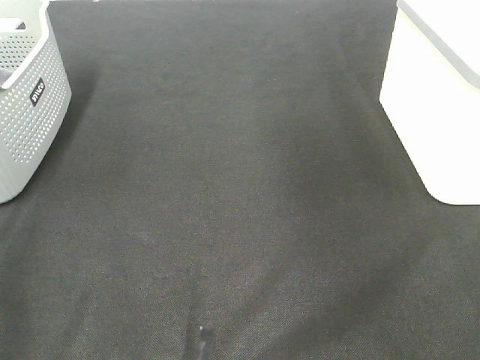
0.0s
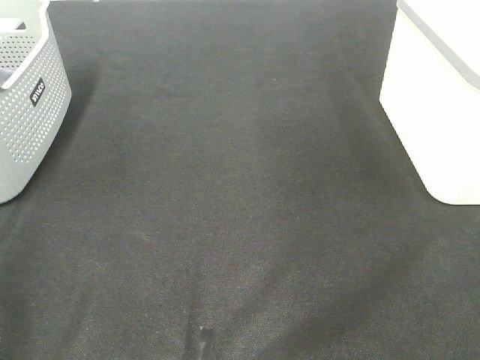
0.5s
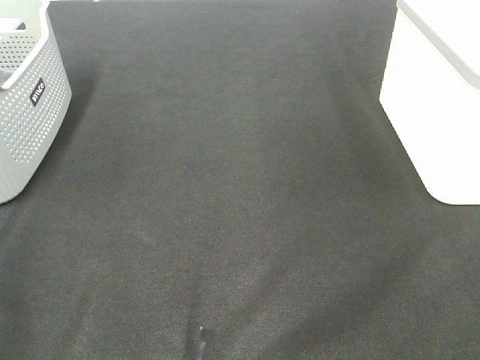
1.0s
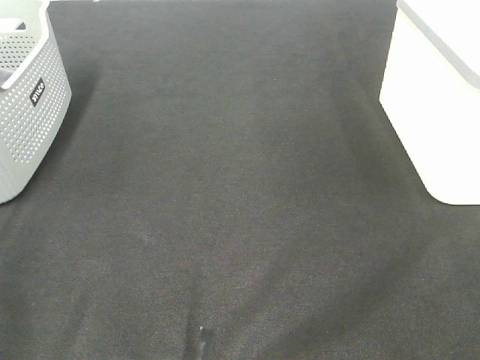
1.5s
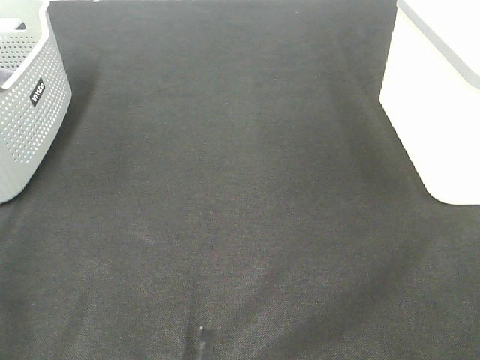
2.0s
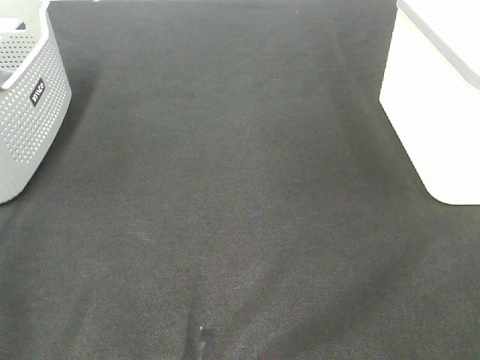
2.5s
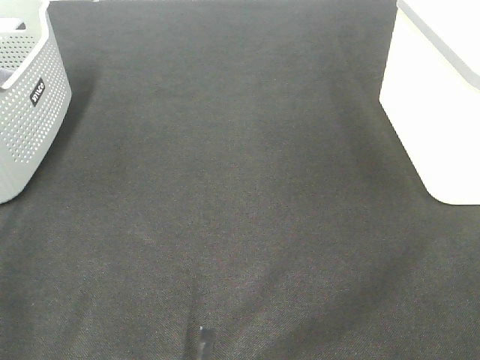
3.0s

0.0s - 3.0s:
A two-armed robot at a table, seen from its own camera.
1.5s - 3.0s: Both grippers stay put.

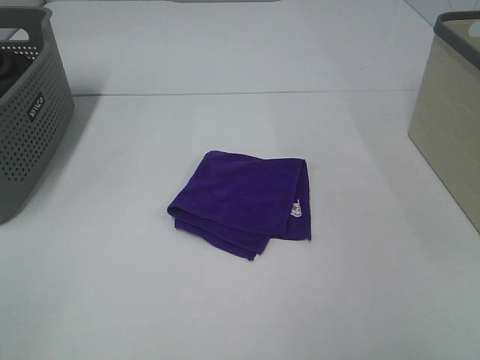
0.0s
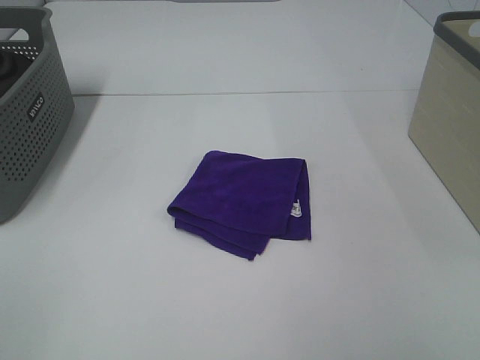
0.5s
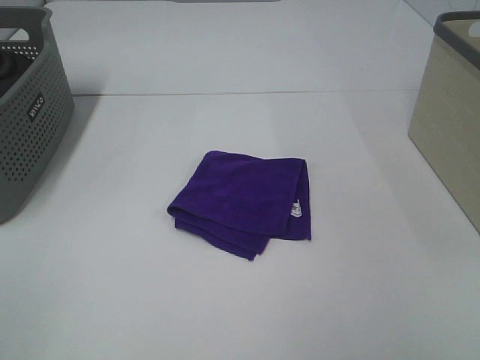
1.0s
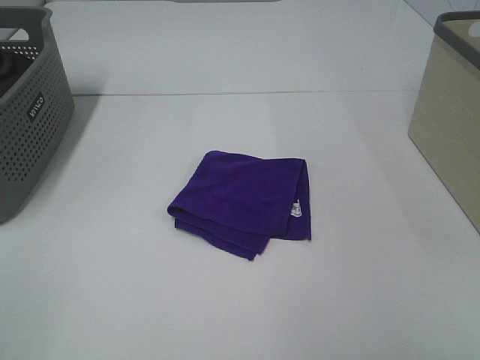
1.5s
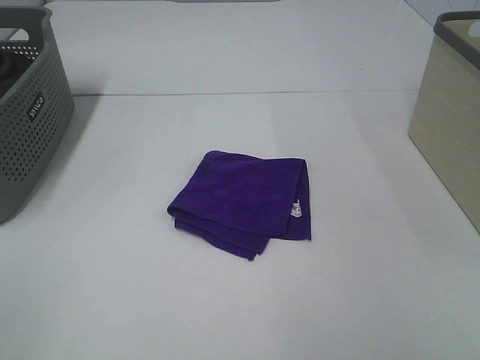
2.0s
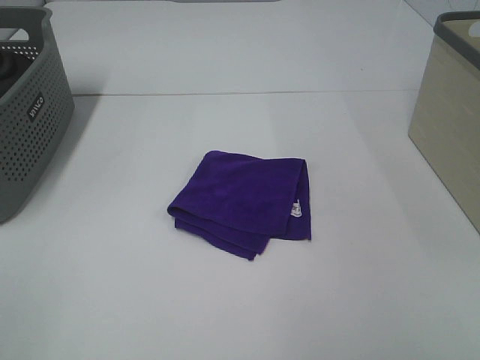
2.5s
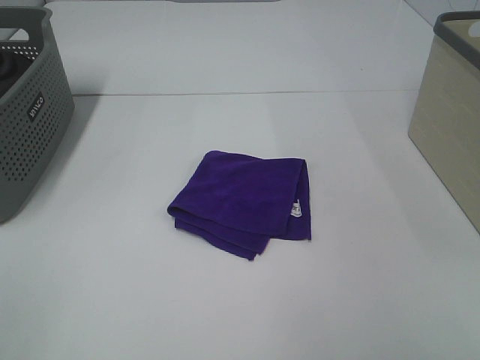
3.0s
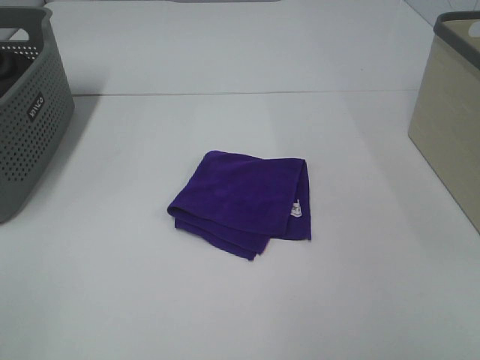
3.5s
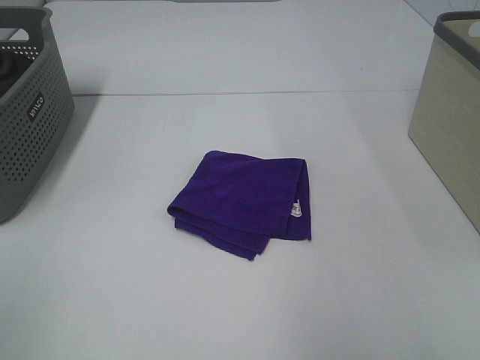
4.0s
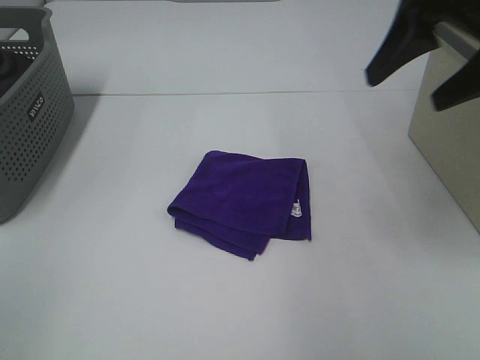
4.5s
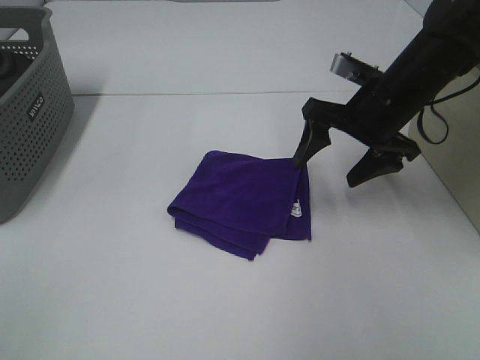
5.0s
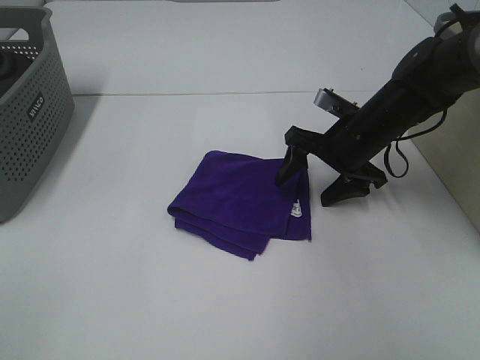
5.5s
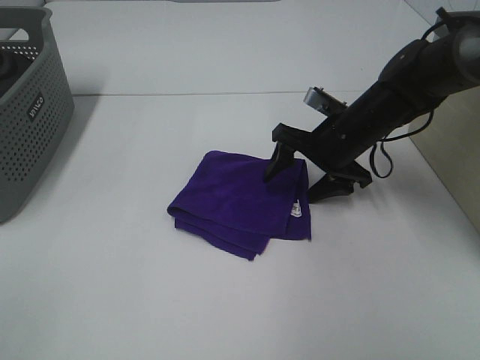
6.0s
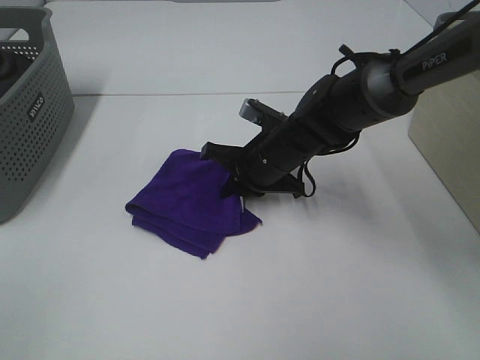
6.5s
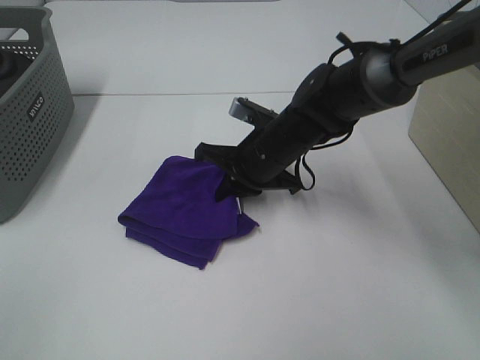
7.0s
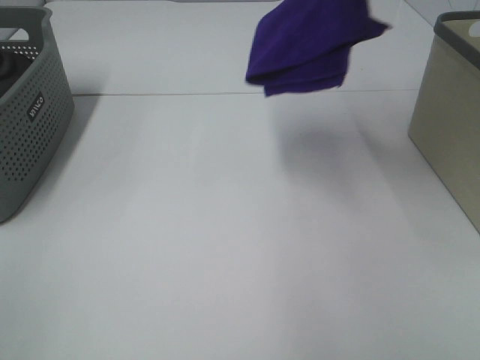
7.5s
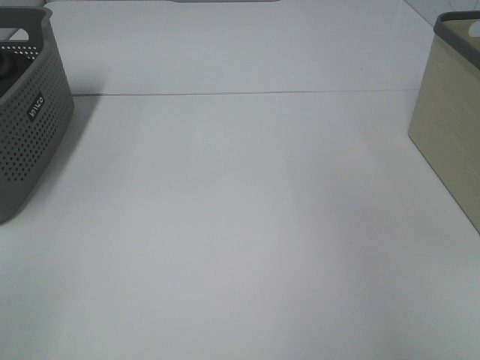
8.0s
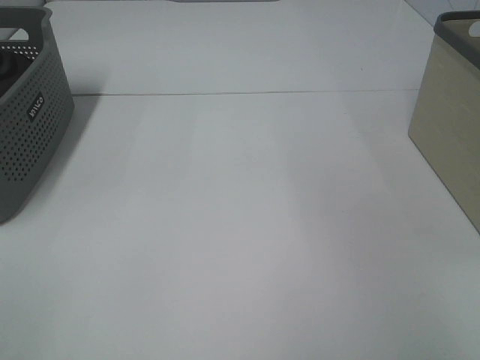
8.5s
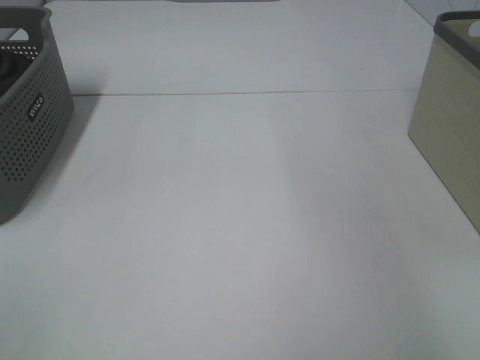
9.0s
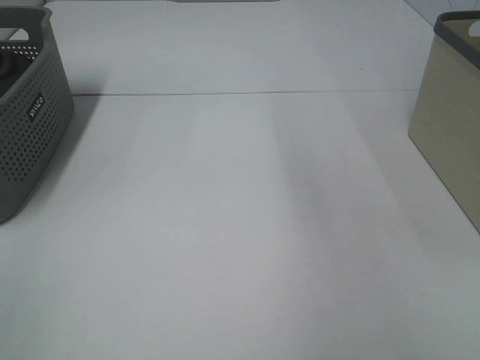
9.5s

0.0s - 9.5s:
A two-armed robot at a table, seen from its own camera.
Step, 0.0s - 6.5s: Right hand: grab the folded purple towel.
Step, 7.0s - 9.0s: Right hand: place the purple towel in right basket.
4.0s - 5.5s: The right gripper travels downward and forward by some 40 cm.
5.5s - 7.5s: The right gripper travels upward by approximately 30 cm, and closes.
7.5s - 9.5s: The right gripper moves roughly 20 cm to the right and comes back, and opens.

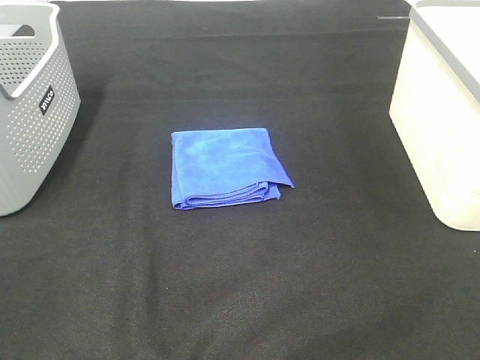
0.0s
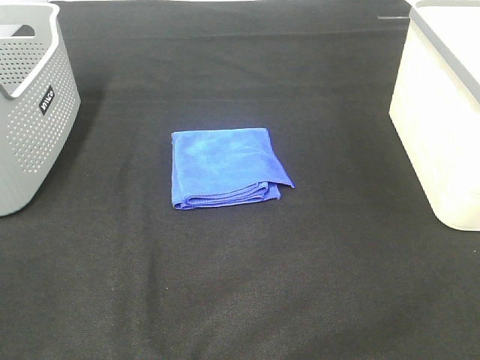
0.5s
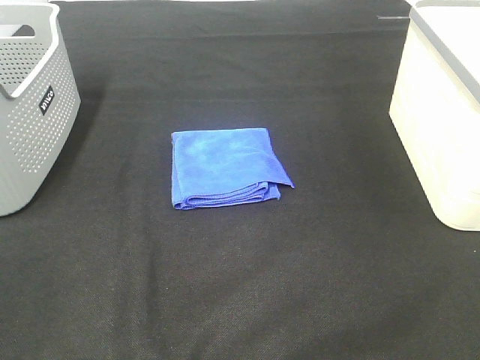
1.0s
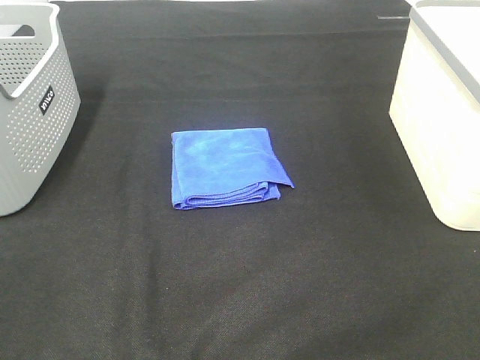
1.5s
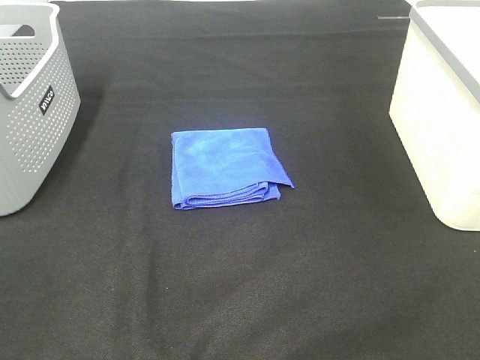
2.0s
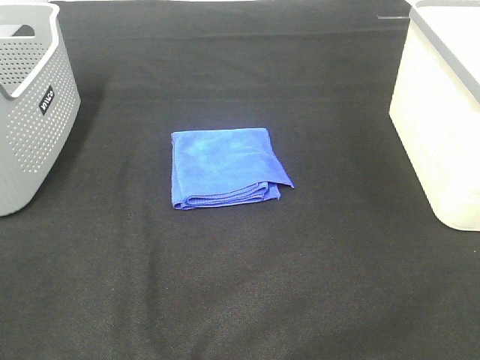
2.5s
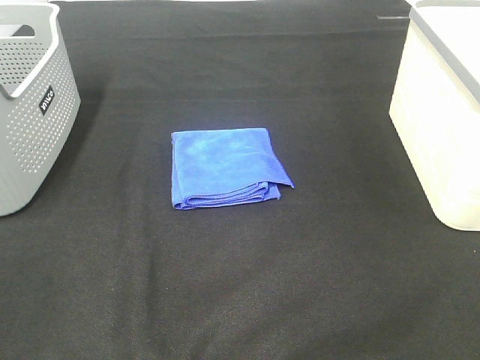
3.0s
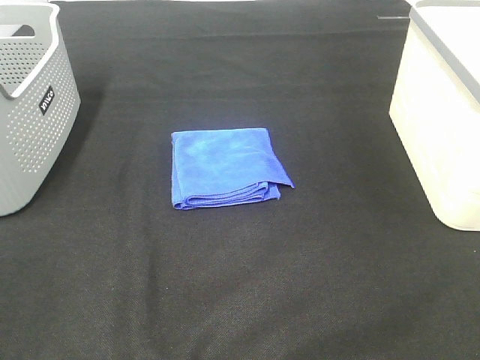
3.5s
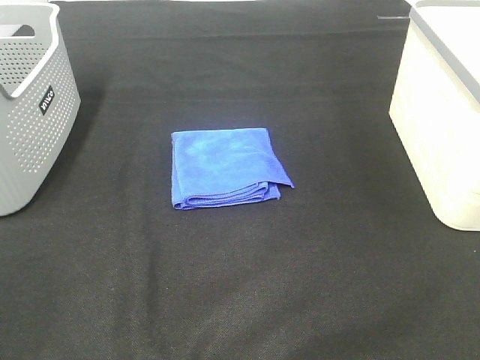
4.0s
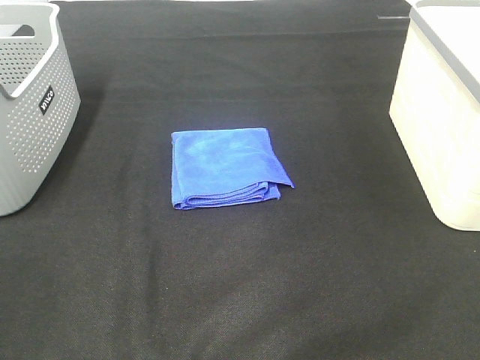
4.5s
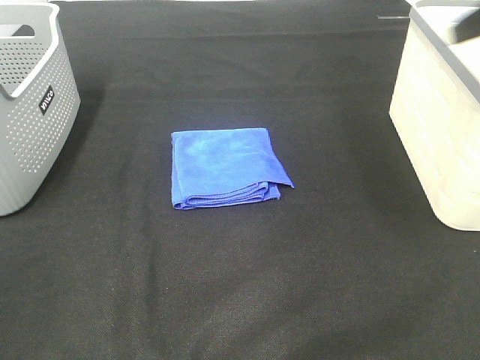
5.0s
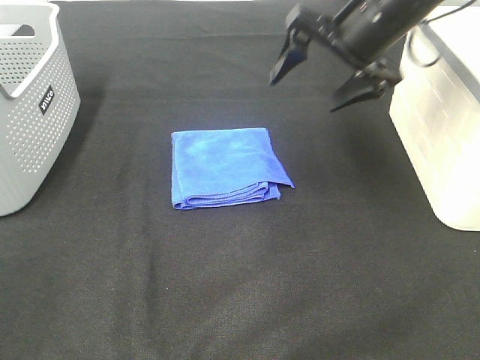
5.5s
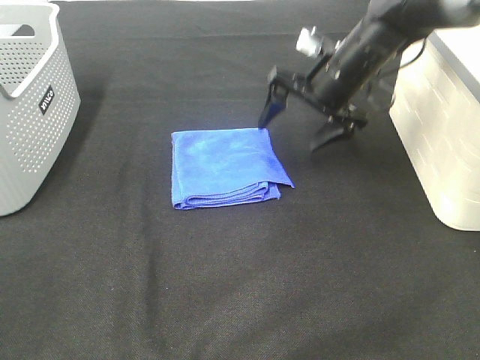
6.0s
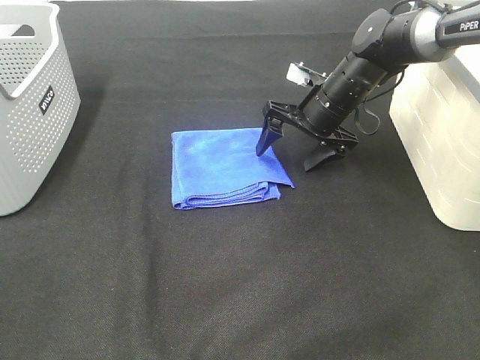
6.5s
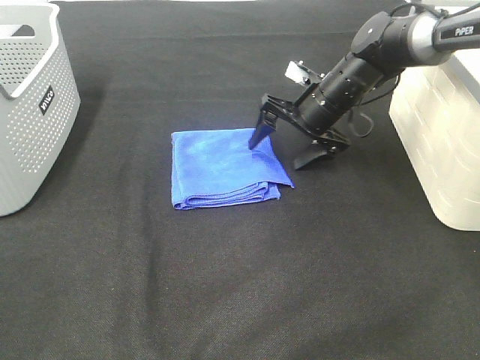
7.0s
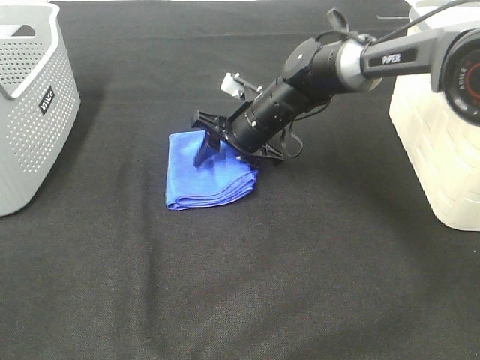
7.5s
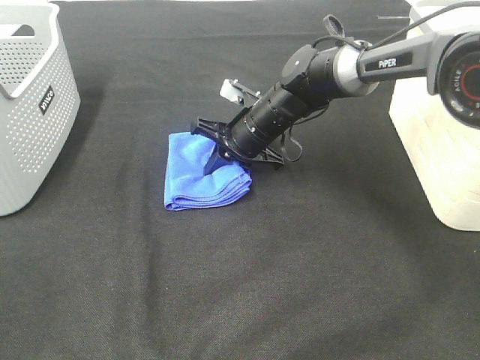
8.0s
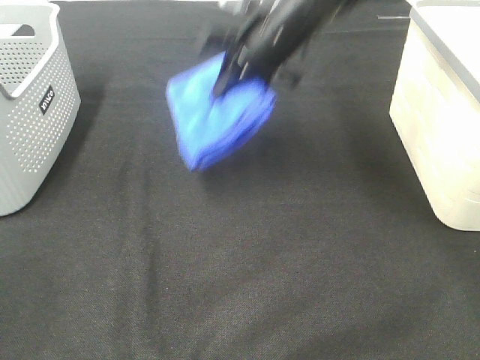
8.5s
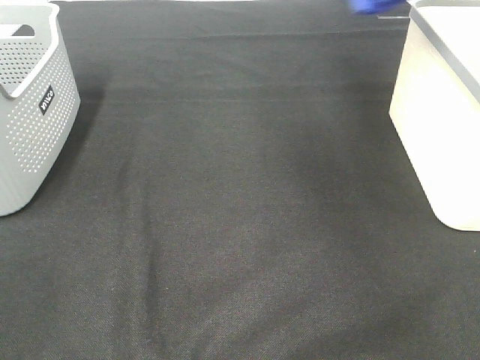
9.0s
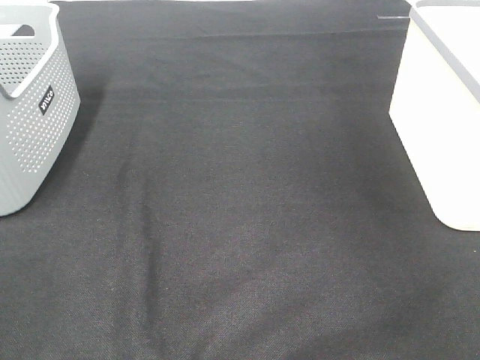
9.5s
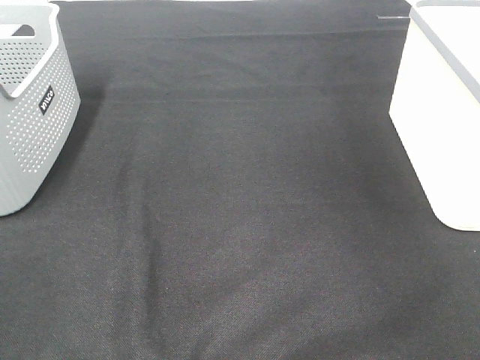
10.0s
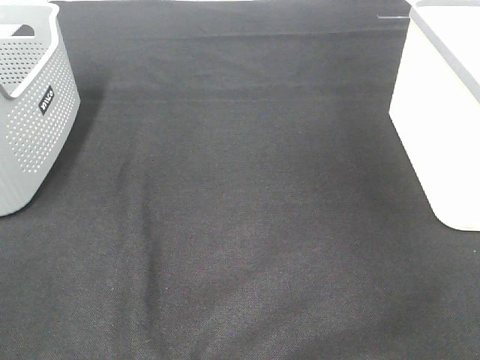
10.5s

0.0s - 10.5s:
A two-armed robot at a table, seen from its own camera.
Step, 0.0s - 7.5s: Right hand: grab the folded blue towel.
Step, 8.0s - 10.5s: Right hand: place the blue towel in right basket.
0.0s - 2.0s: Both grippers stay about where they are.
4.0s - 6.5s: The right gripper heads forward, downward and to the left, covering roughly 50 cm.
6.5s - 8.5s: The right gripper is displaced upward and to the left by about 15 cm, and closes its fingers.
8.5s - 10.5s: The right gripper shifts some 35 cm to the right, and opens up.

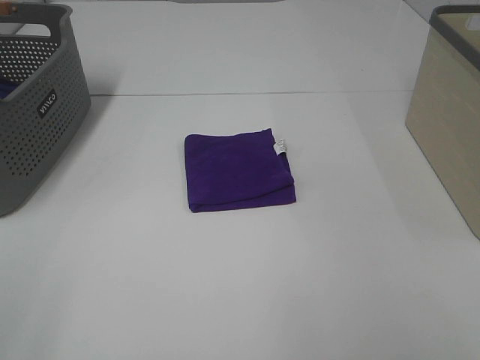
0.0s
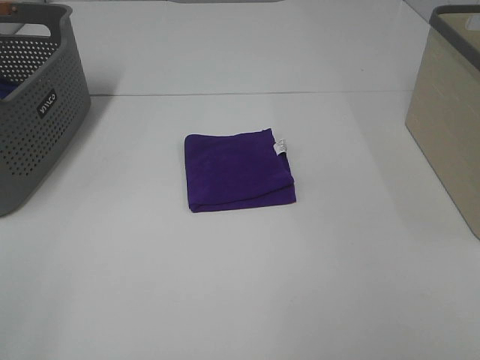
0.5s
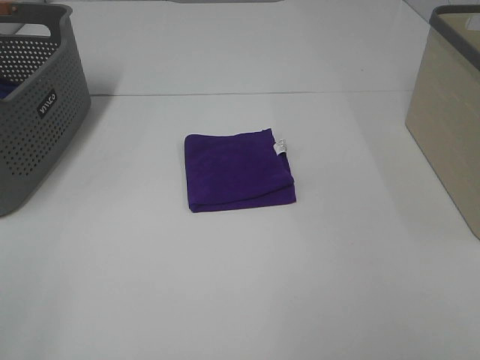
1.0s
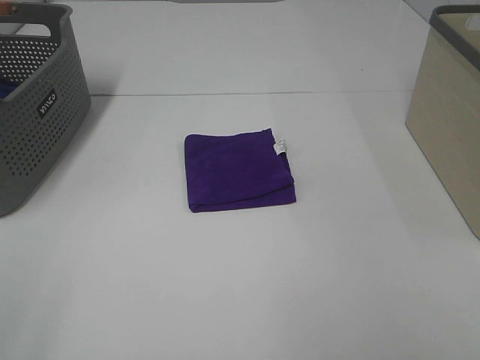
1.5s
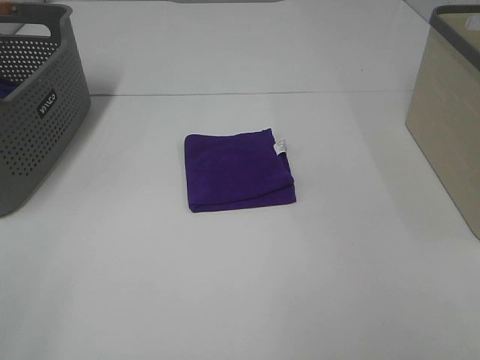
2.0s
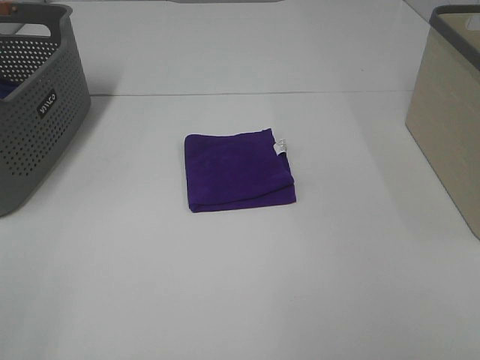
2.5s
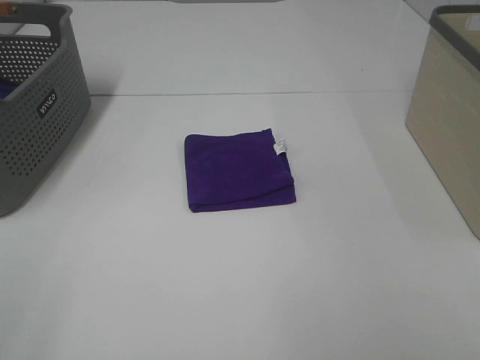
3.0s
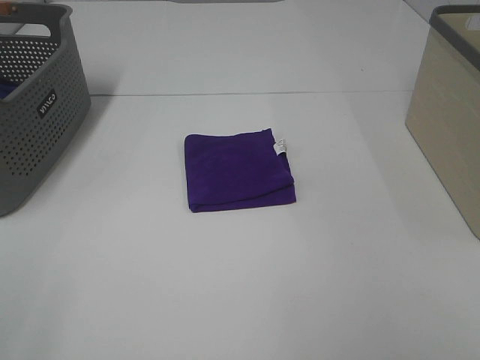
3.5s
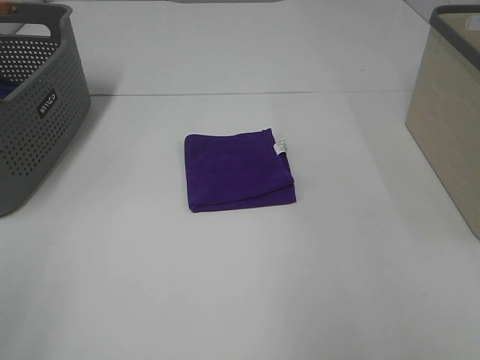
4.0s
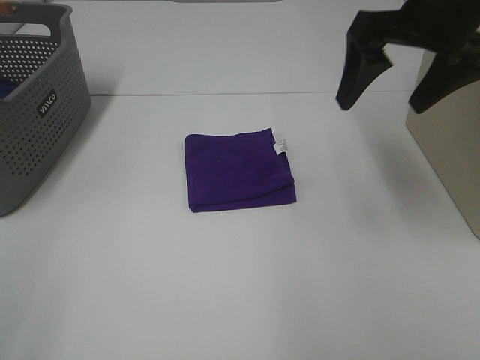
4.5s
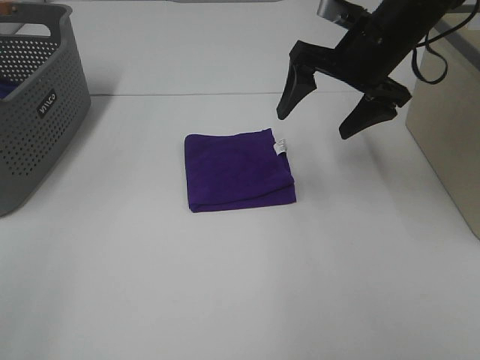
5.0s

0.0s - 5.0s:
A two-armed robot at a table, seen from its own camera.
0.0s - 2.5s: Both grippers stay put.
2.5s - 5.0s: The right gripper travels forward by approximately 40 cm.
